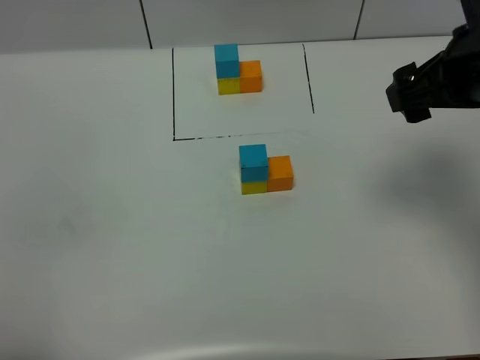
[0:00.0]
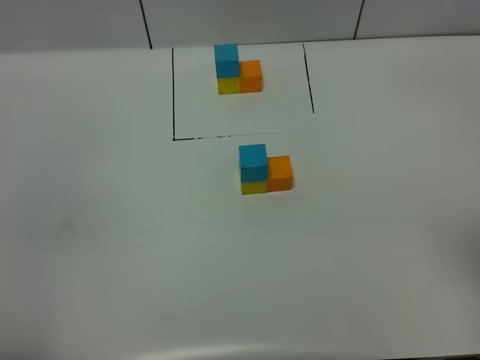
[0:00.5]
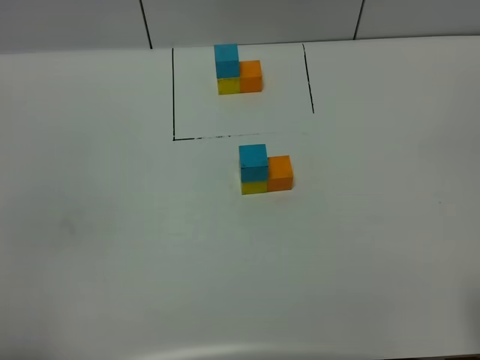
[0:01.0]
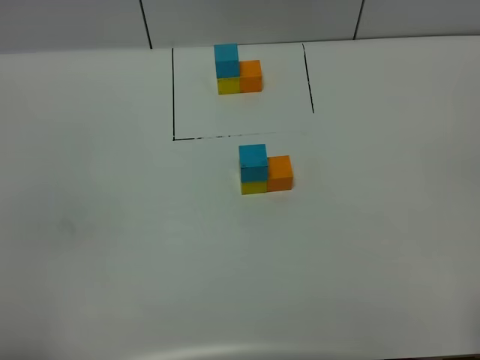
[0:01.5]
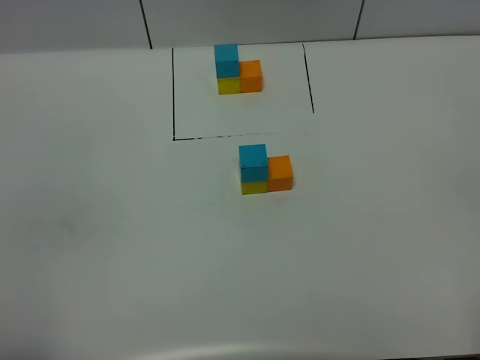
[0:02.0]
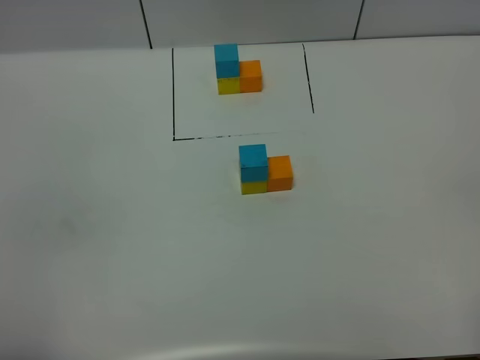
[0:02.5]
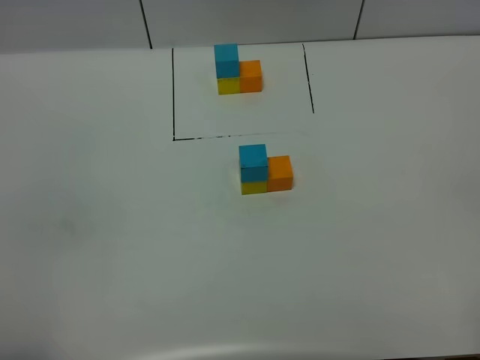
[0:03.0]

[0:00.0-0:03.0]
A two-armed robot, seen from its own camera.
Task of the whole recording: According to the building block template in front, assemble the scattered blocks together.
0:00.0 to 0:01.5: The right gripper is displaced backward by some 25 cm.

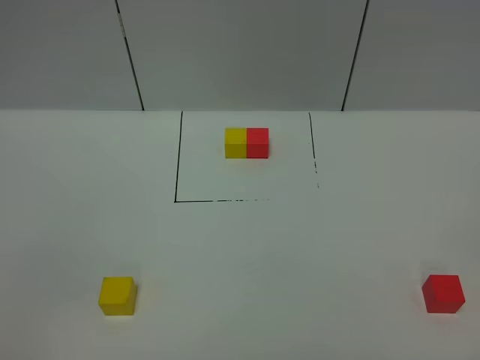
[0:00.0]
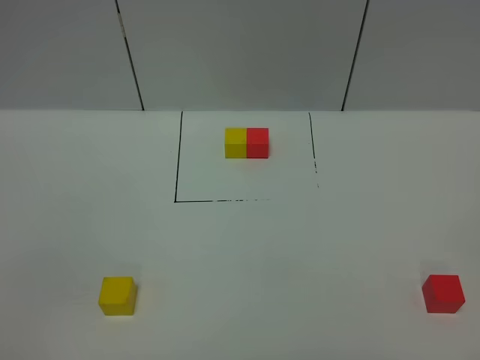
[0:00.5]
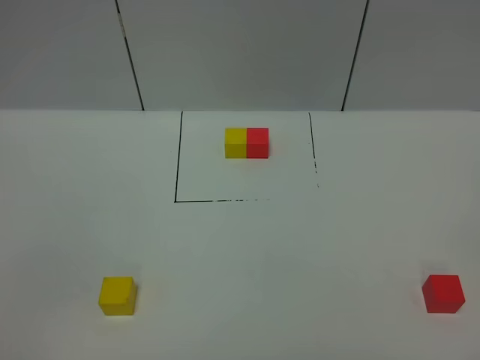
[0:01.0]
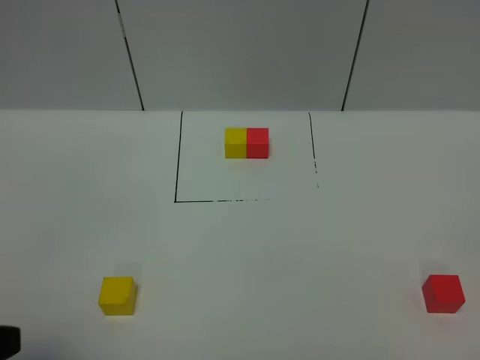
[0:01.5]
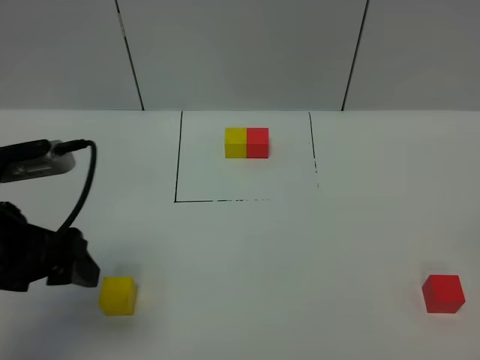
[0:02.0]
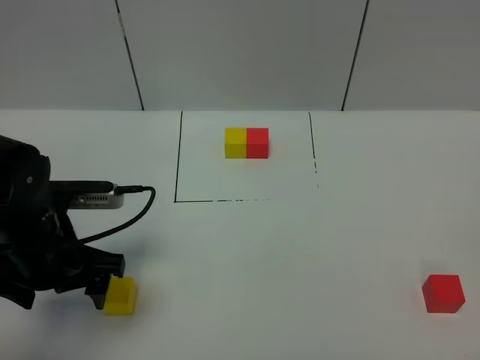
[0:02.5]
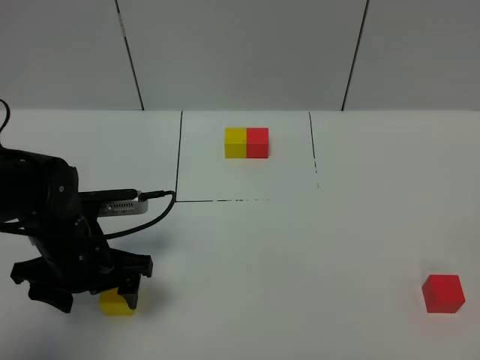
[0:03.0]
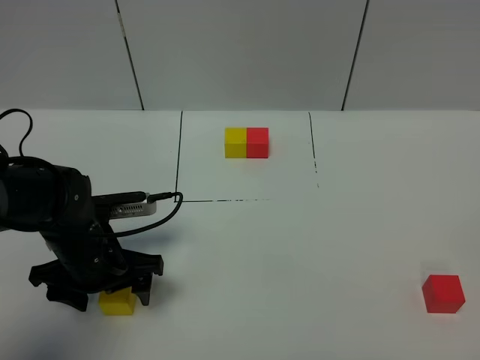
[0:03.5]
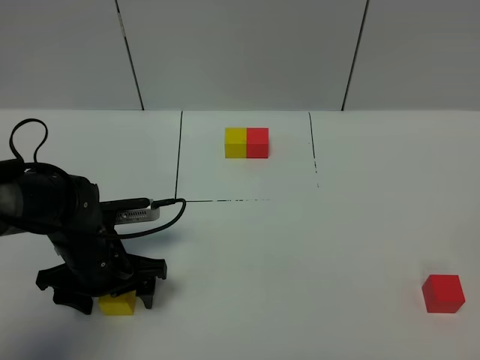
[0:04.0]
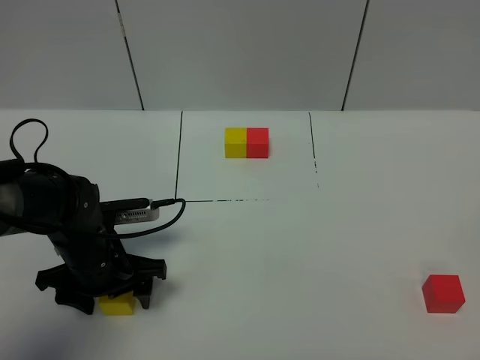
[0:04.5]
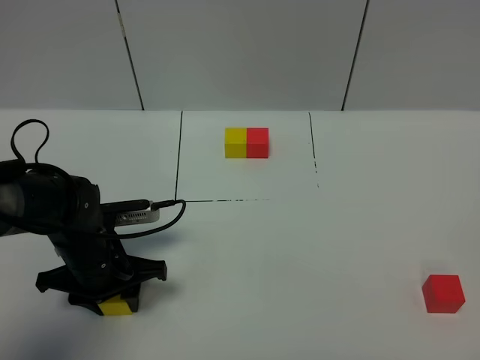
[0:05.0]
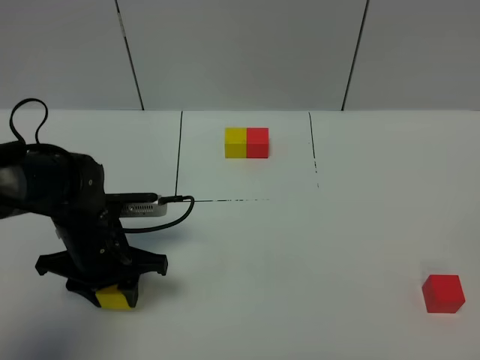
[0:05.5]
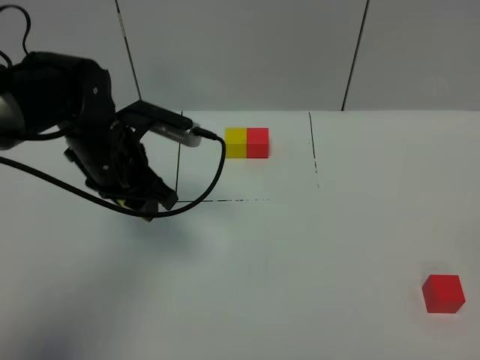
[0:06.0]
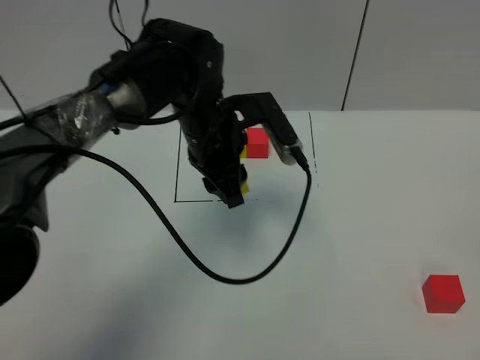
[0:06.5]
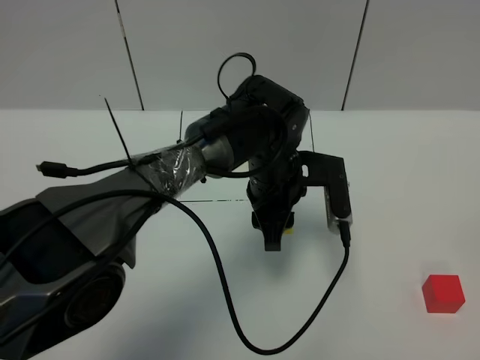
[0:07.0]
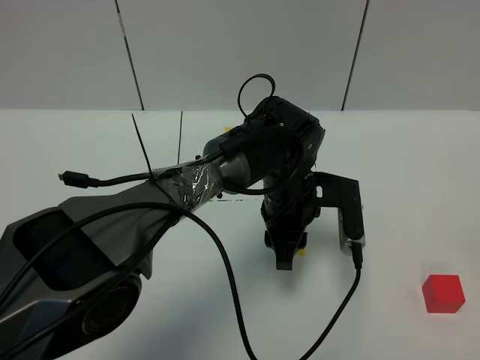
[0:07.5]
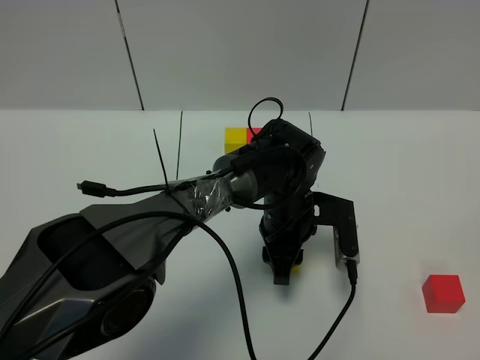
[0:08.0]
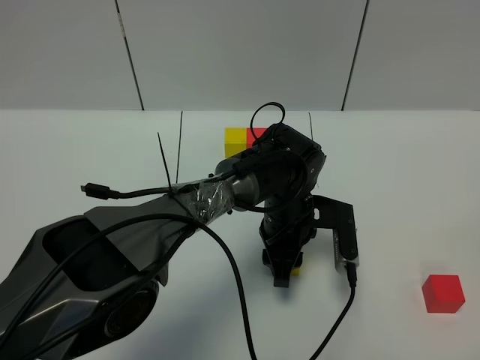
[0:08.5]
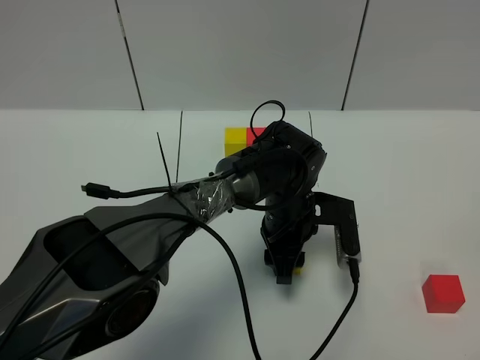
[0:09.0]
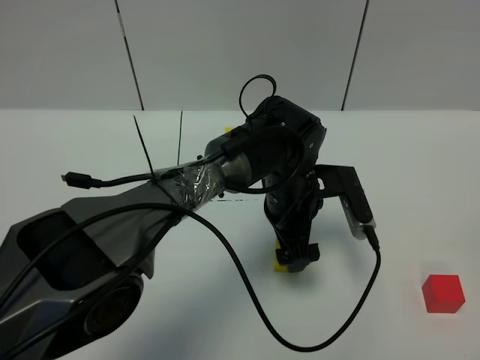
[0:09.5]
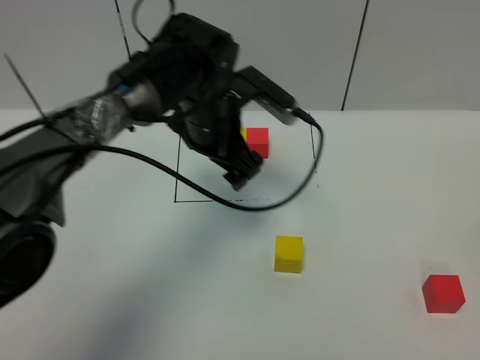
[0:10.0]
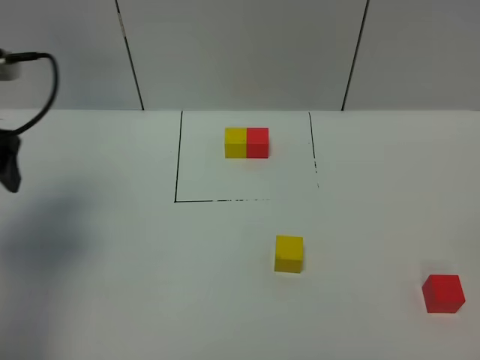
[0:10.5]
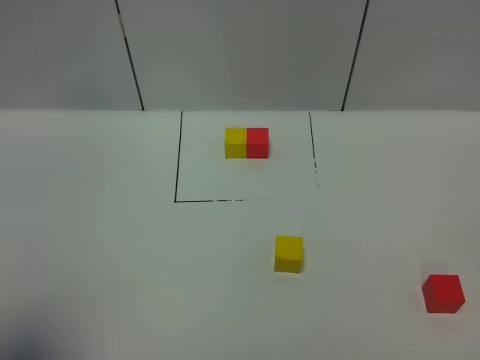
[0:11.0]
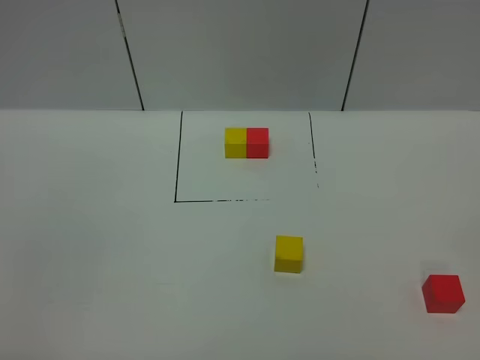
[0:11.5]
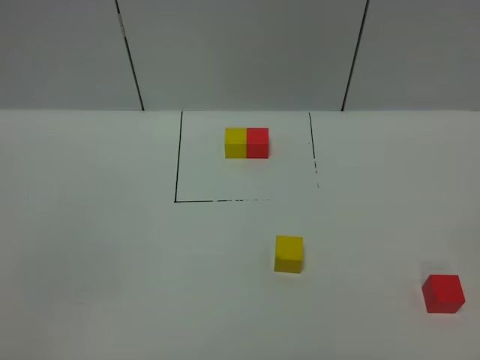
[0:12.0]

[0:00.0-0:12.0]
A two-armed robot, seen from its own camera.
Task of the whole recording: According to the building block template in front, assemble the scattered blocks together.
Step, 0:01.5 to 0:09.5: Put the yellow cube in the center of the table.
0:00.0 to 0:02.0: The left gripper moves forward, approximately 25 cm.
0:02.0 to 0:04.0: The left gripper travels downward and forward by about 20 cm.
0:04.0 to 0:06.0: The left gripper is displaced upward and forward by about 15 cm, and closes.
0:06.0 to 0:08.0: The left gripper shifts some 25 cm to the right and downward.
0:08.0 to 0:10.0: The left gripper heads upward, to the left and forward, covering approximately 20 cm, and opens.
0:10.0 to 0:12.0: The left gripper shifts about 50 cm backward and to the left, and closes up.

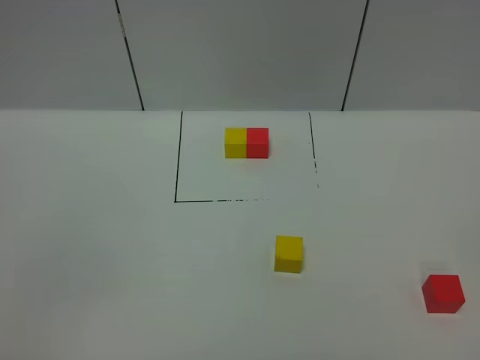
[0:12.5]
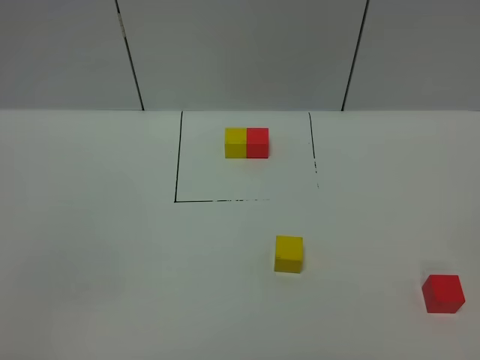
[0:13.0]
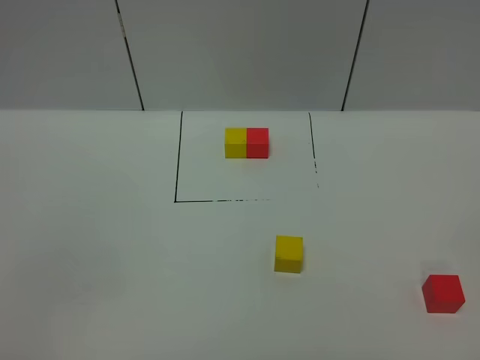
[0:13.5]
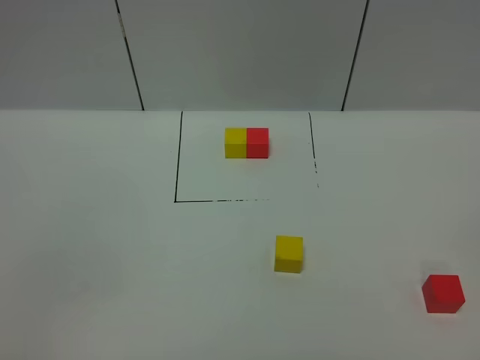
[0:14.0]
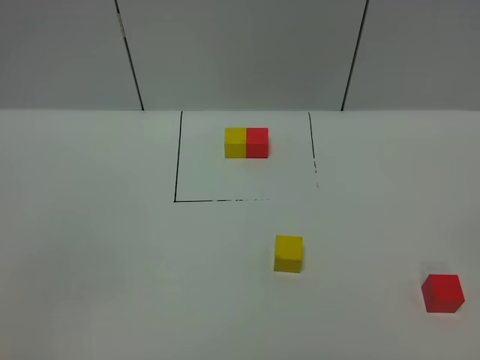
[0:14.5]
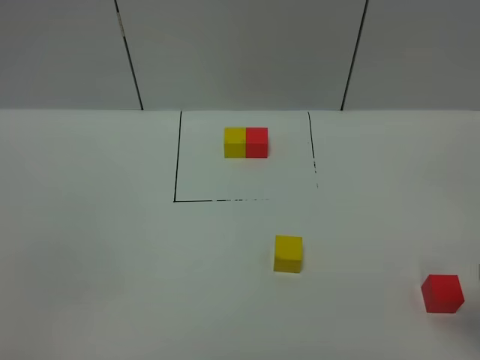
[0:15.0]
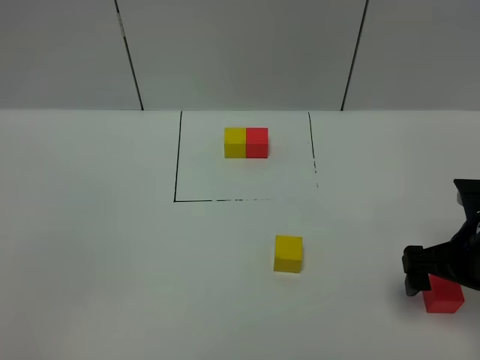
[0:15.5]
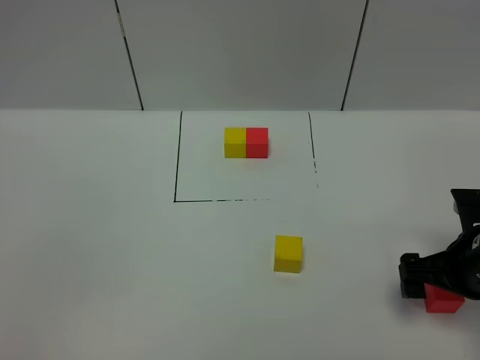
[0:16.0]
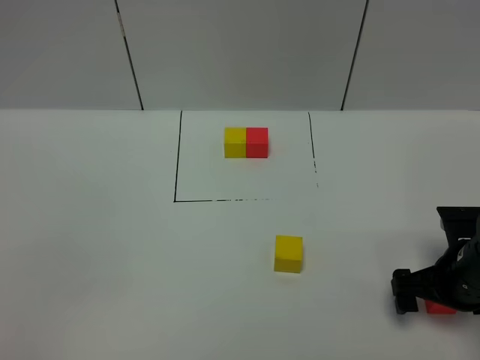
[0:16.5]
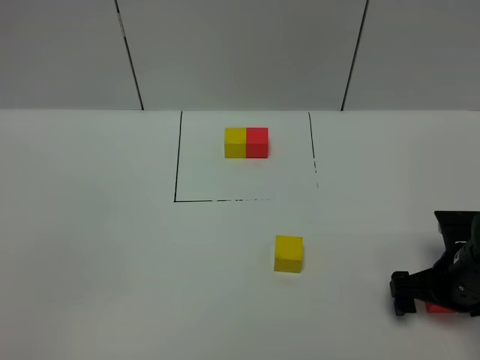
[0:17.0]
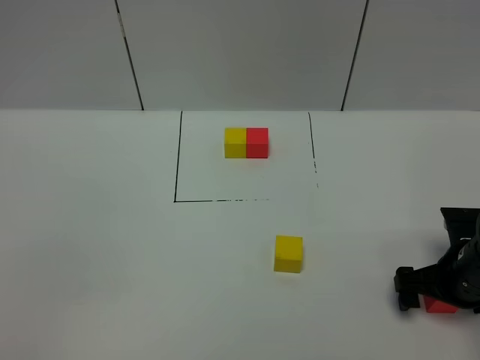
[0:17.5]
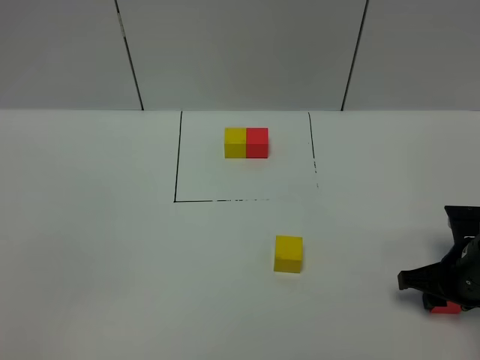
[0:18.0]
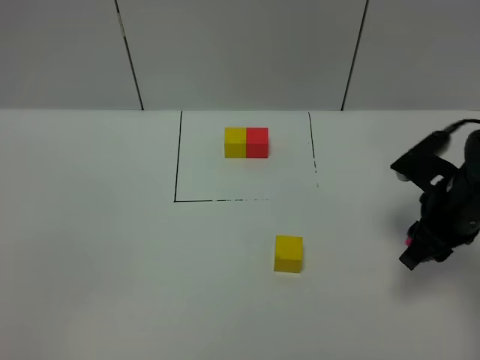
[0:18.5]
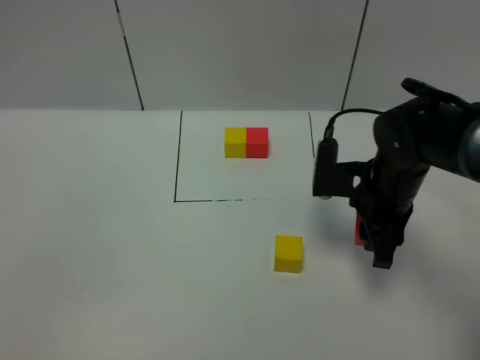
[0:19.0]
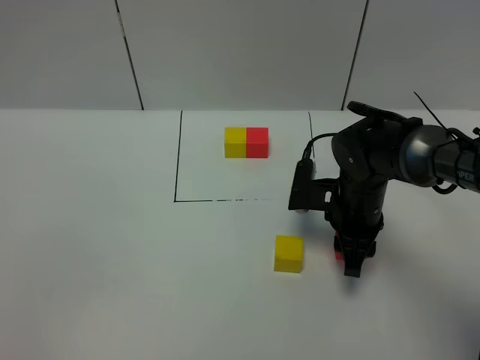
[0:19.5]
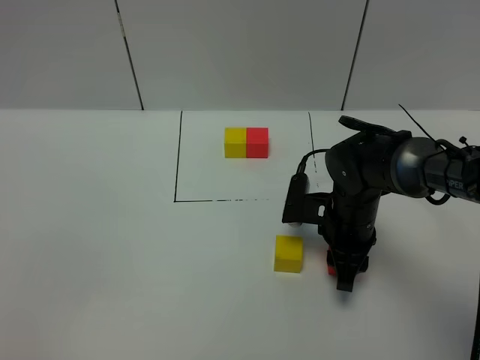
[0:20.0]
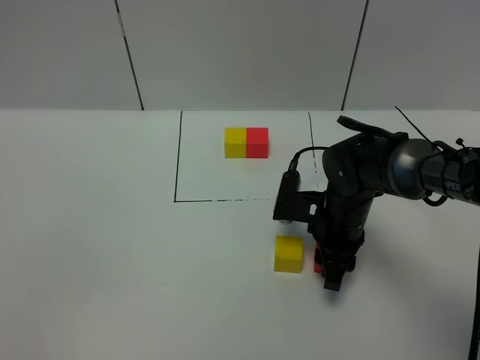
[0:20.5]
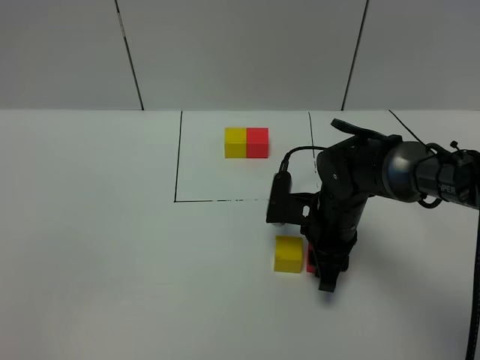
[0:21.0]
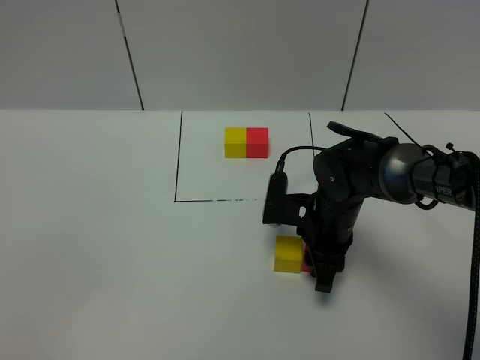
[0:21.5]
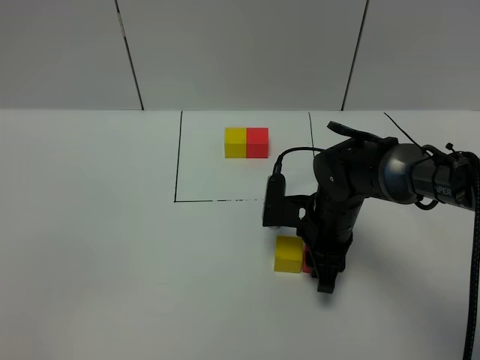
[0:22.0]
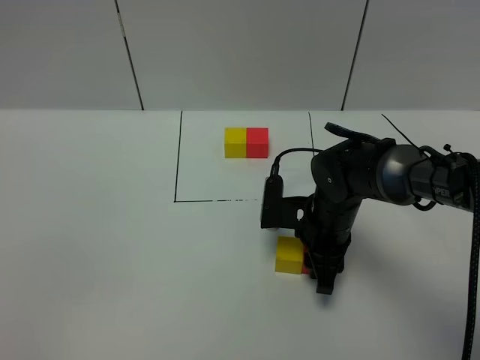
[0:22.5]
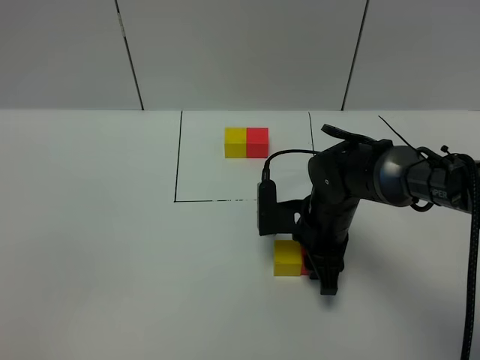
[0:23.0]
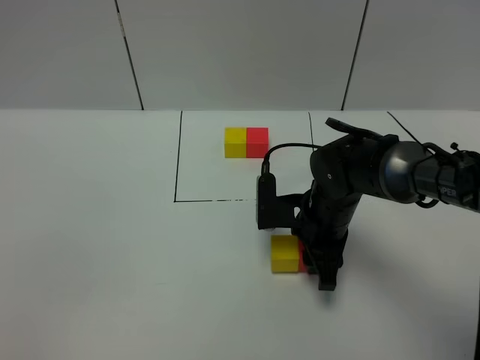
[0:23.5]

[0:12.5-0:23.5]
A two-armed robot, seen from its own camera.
Task of the whole recording: According to the building block template in front, assemble the scattered blocks together.
0:14.5 to 0:16.0: The right gripper moves forward and downward, roughly 30 cm.
0:16.0 to 0:18.0: The right gripper moves downward, roughly 5 cm, and closes up.
0:18.0 to 0:20.0: The right gripper goes about 15 cm to the left and forward.
0:20.0 to 0:23.5: The grippers stay close to where they were, moving slightly.
